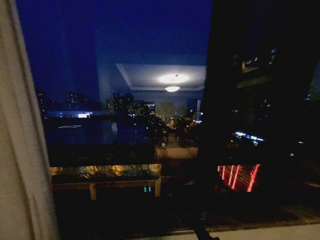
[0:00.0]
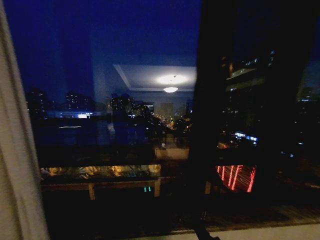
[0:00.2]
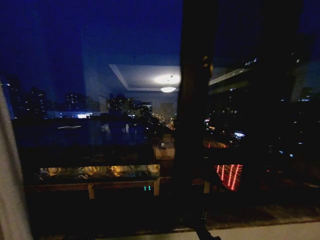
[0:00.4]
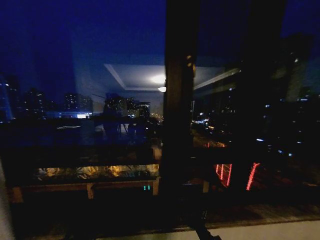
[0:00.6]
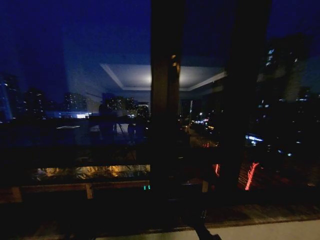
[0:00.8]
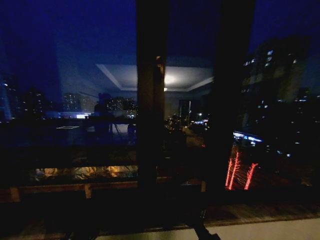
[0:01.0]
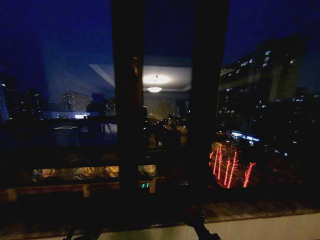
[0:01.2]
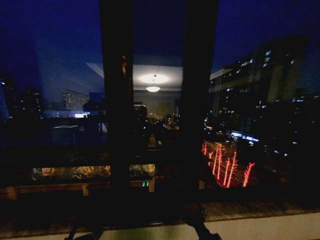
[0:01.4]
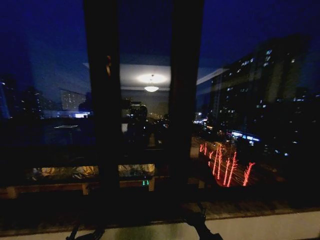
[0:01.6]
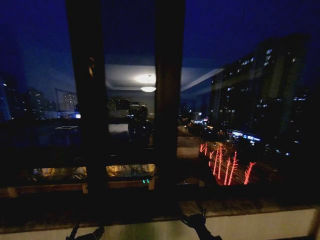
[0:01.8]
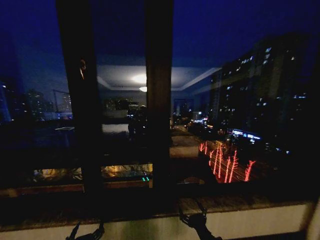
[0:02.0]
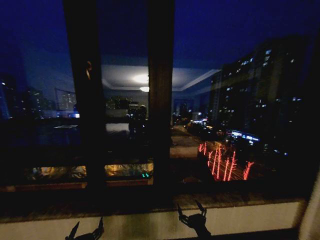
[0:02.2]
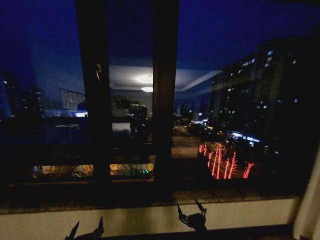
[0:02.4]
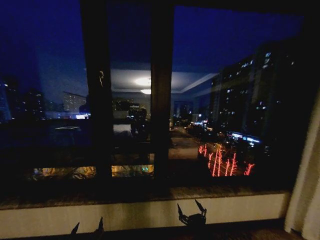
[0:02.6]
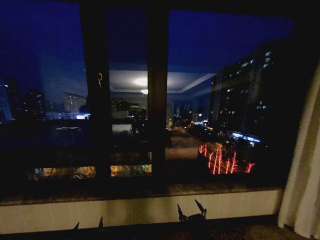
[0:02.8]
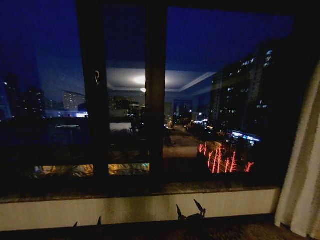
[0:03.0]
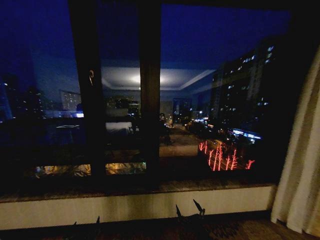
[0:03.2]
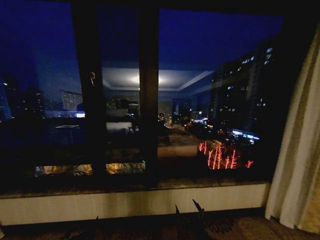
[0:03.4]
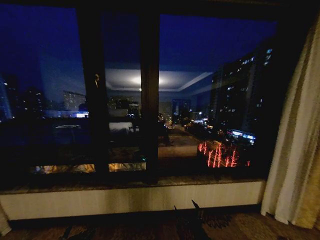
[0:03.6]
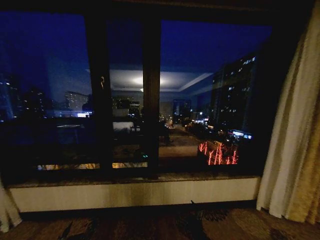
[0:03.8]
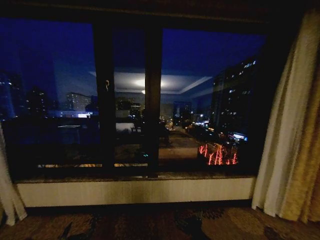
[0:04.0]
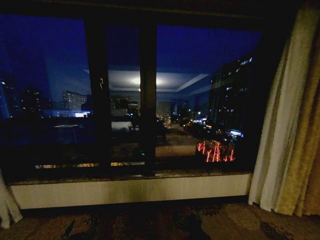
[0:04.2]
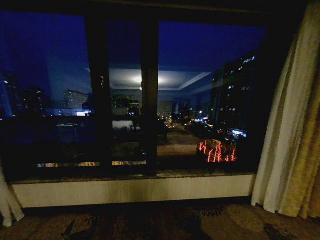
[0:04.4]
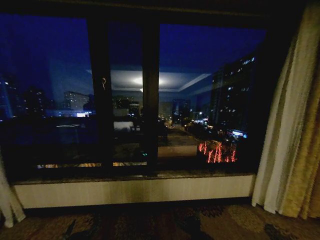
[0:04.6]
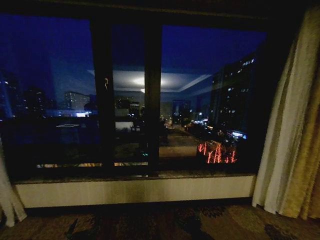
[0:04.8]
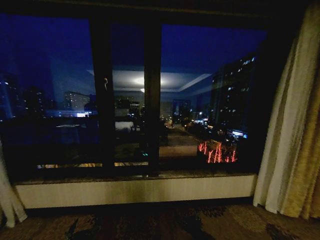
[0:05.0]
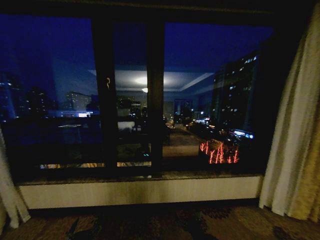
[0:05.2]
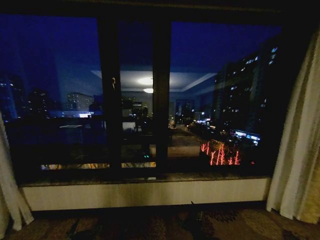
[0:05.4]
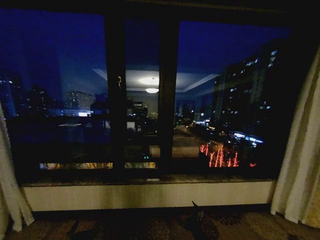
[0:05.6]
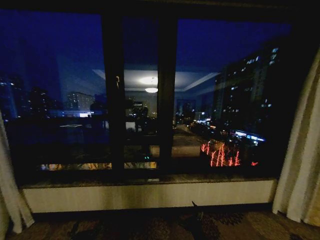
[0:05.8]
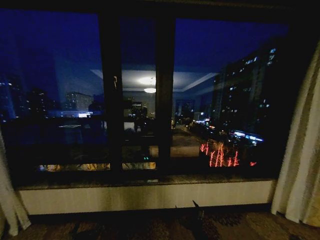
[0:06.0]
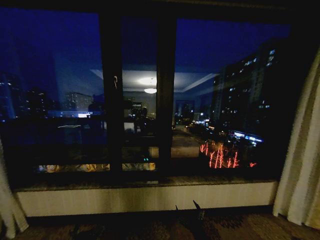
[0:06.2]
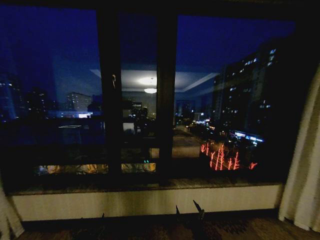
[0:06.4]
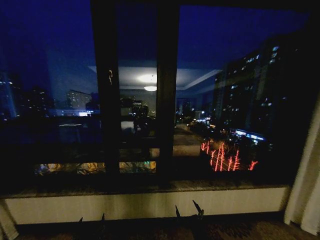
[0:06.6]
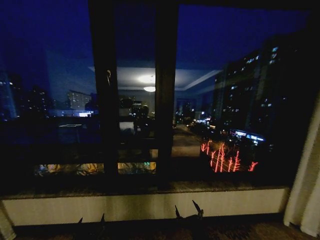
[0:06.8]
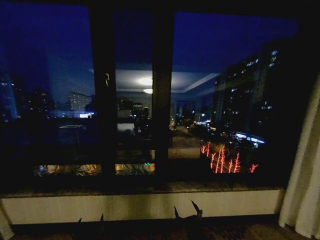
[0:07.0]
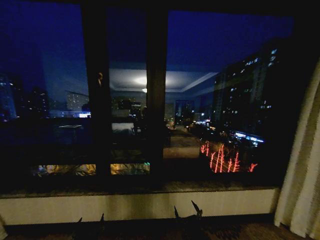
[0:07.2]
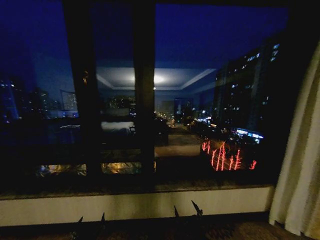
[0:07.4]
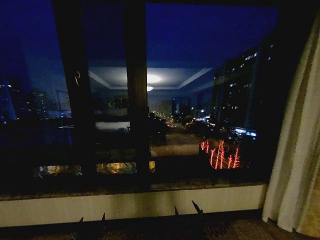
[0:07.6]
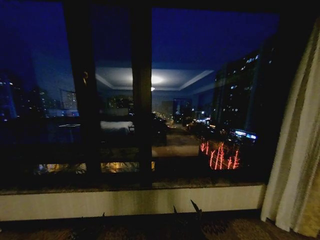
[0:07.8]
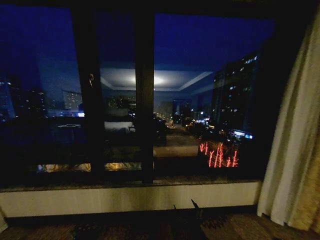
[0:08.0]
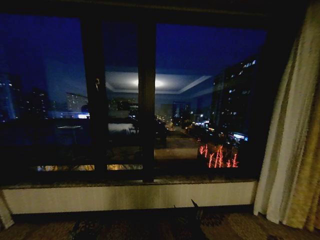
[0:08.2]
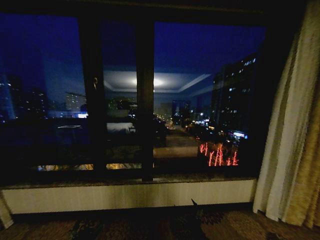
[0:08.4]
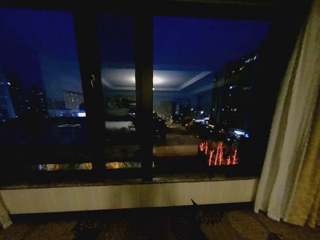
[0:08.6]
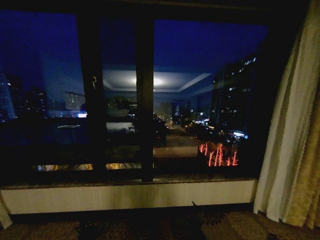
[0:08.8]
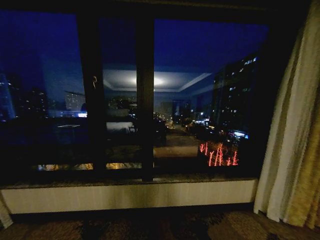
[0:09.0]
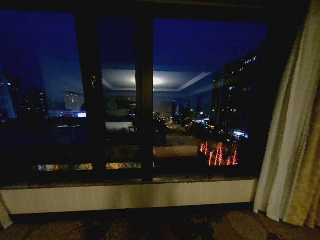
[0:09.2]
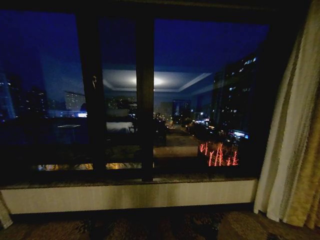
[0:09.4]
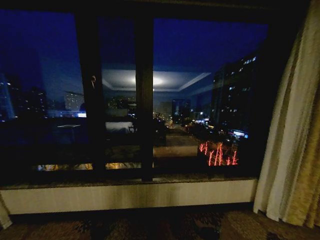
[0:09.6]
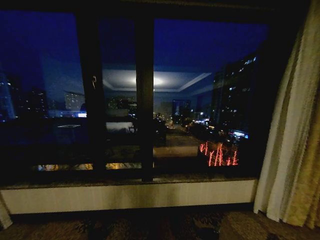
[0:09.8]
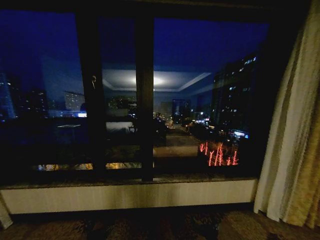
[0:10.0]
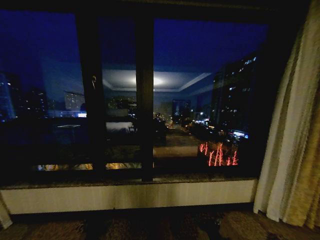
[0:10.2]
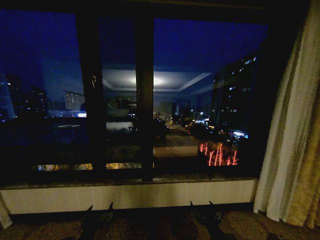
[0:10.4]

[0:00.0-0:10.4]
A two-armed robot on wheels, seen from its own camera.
Task of the whole recording: Open the curtains by pulling them apart, changing their state from closed to fully open.
0:06.0 to 0:07.4: Neither gripper changes place.
